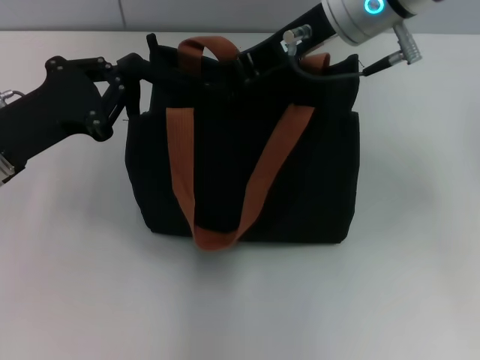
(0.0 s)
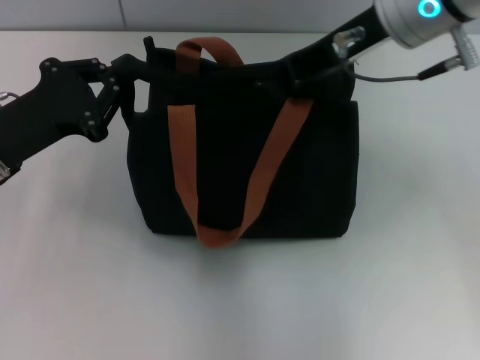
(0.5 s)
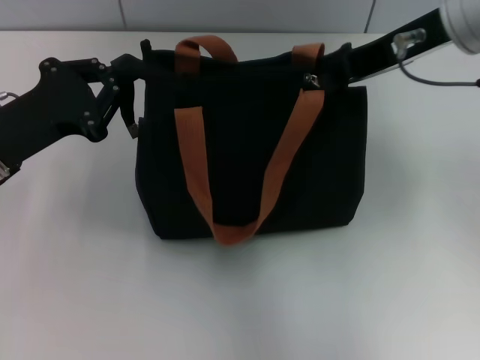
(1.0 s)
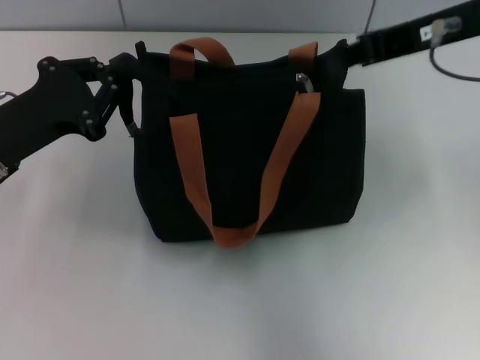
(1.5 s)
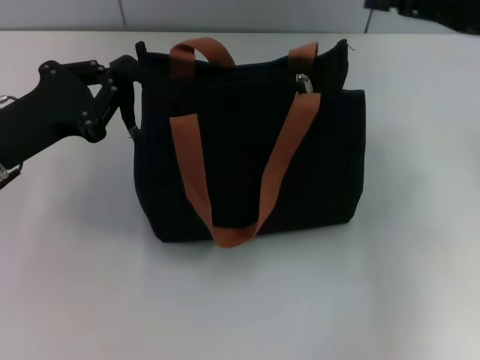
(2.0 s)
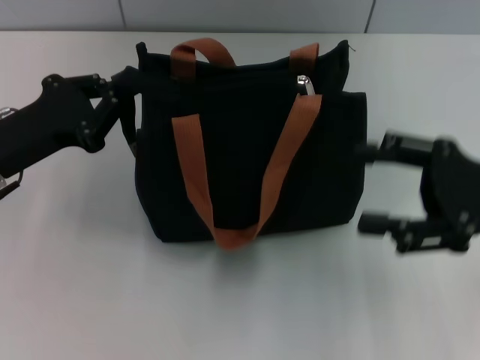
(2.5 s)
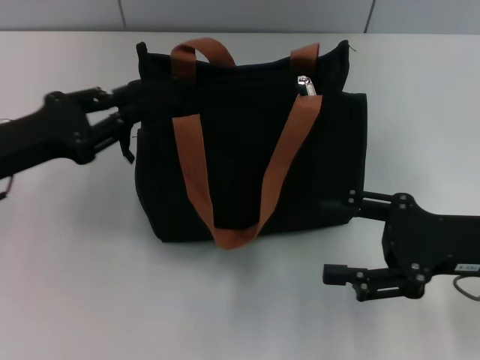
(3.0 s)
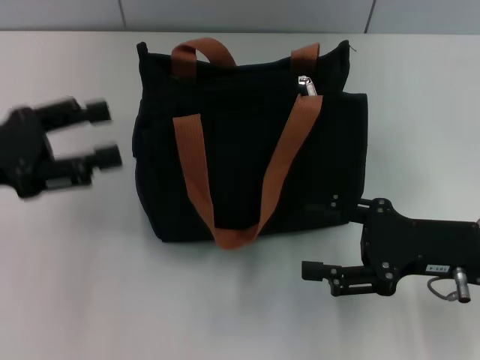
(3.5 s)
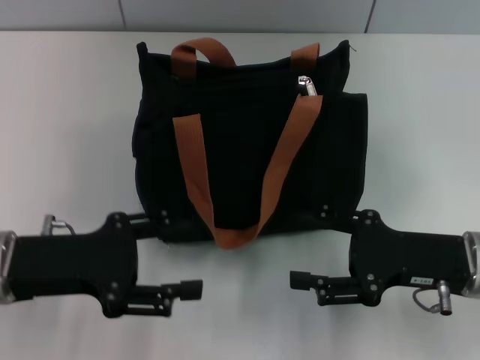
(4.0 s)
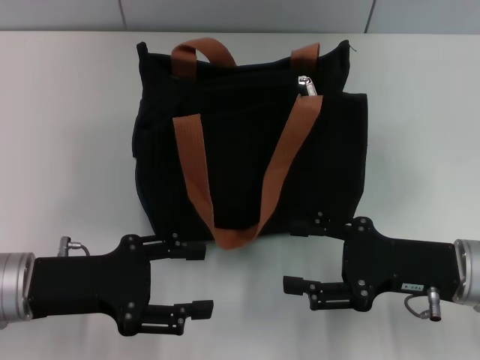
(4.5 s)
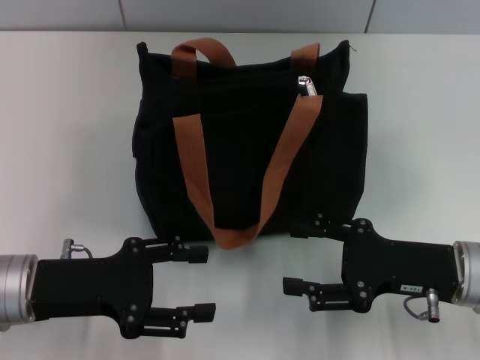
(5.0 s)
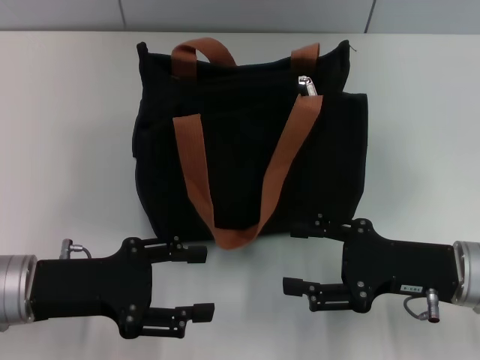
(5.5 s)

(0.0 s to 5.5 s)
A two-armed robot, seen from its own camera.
0.0 s - 2.0 s: The right gripper travels to the right by roughly 20 cm, and opens its fingers.
2.0 s - 3.5 s: The right gripper is displaced downward and backward by about 15 cm, and opens; the left gripper ends up roughly 5 cm from where it was, and opens.
3.5 s - 5.5 s: The left gripper is displaced downward and to the right by about 10 cm.

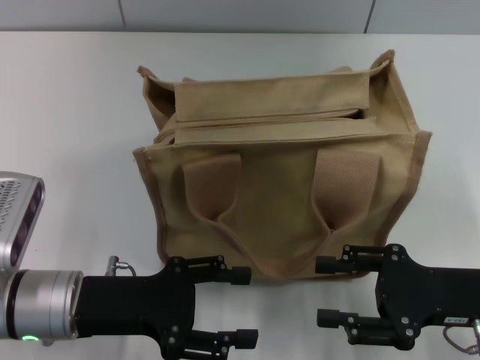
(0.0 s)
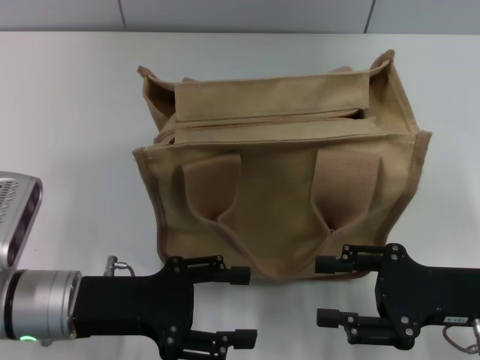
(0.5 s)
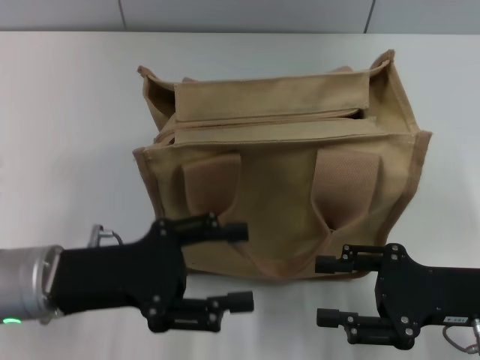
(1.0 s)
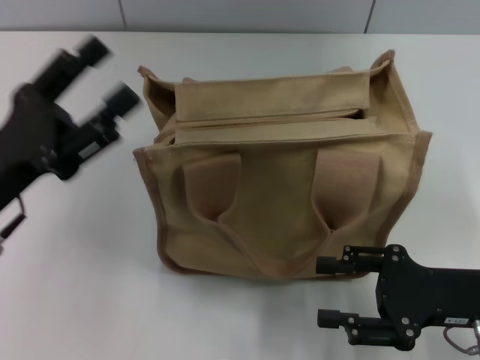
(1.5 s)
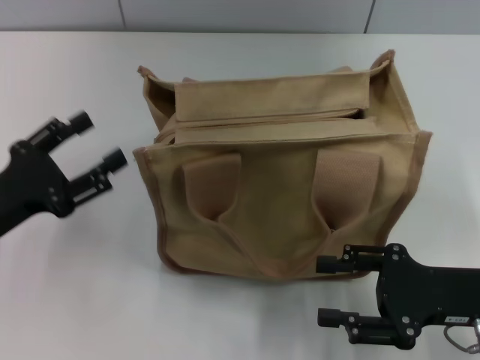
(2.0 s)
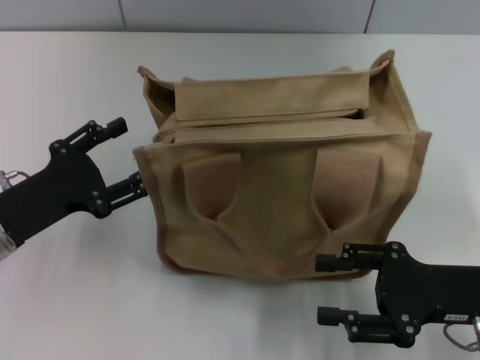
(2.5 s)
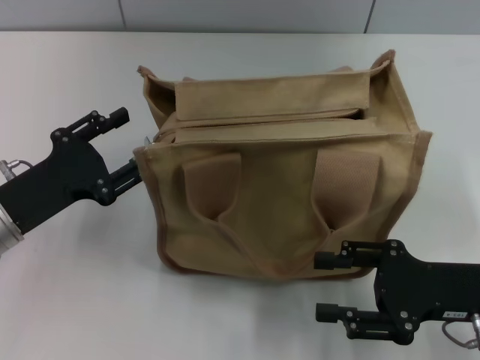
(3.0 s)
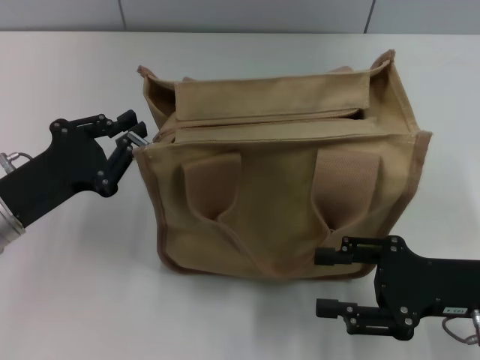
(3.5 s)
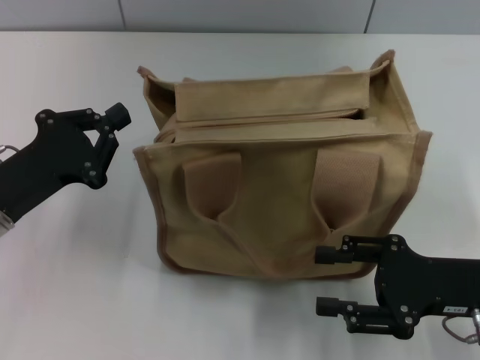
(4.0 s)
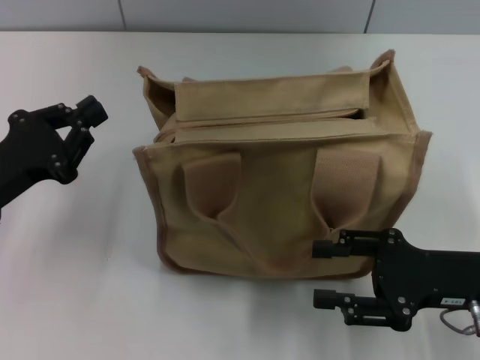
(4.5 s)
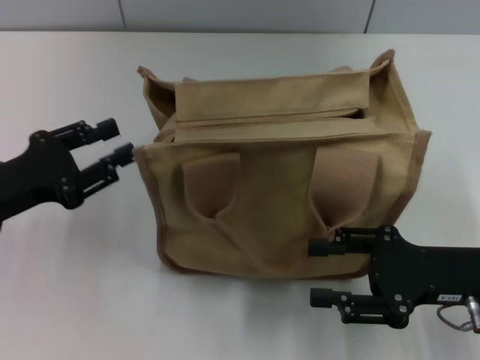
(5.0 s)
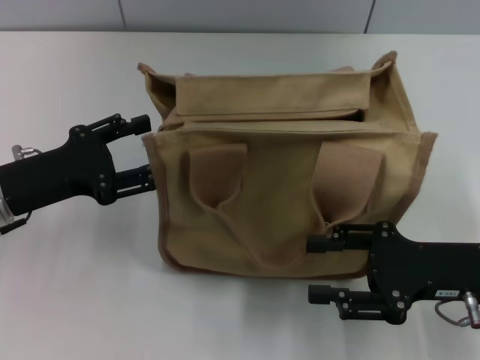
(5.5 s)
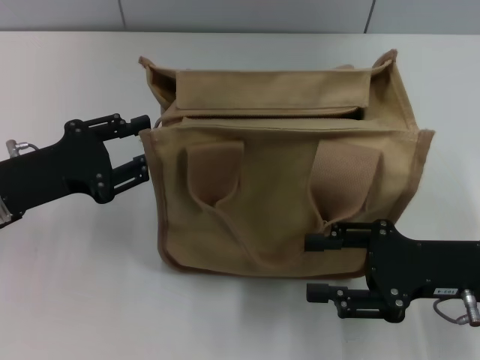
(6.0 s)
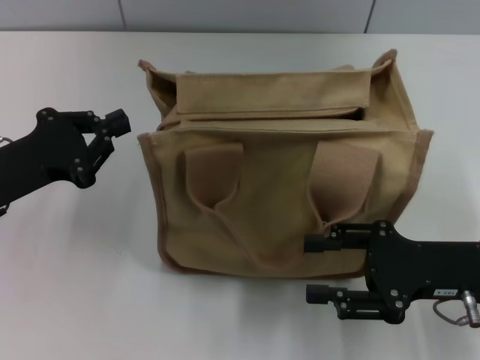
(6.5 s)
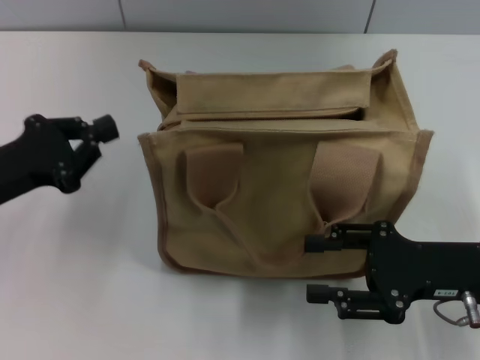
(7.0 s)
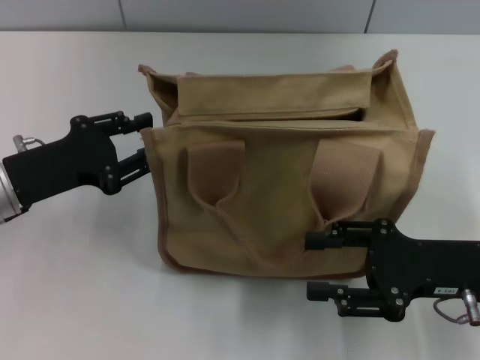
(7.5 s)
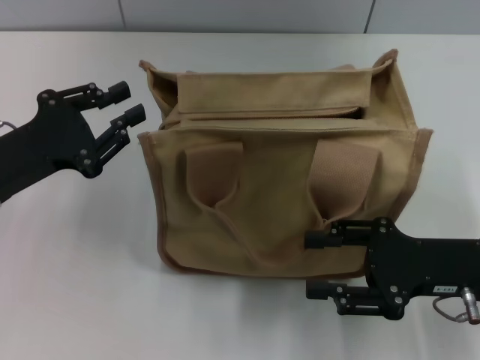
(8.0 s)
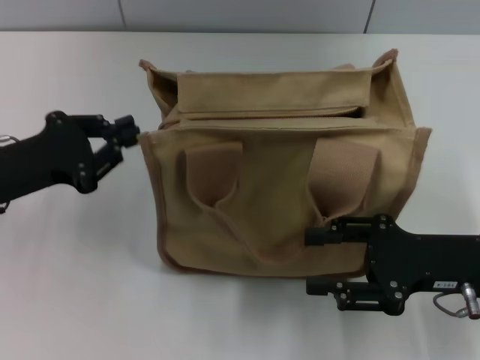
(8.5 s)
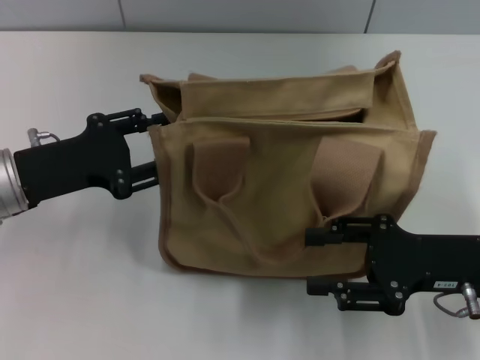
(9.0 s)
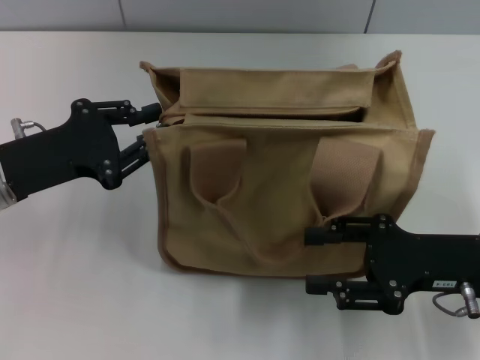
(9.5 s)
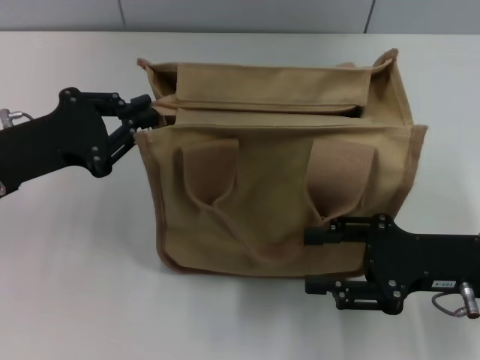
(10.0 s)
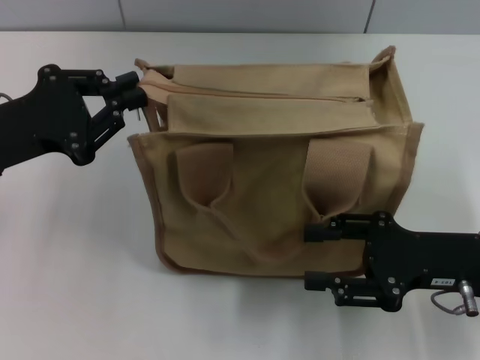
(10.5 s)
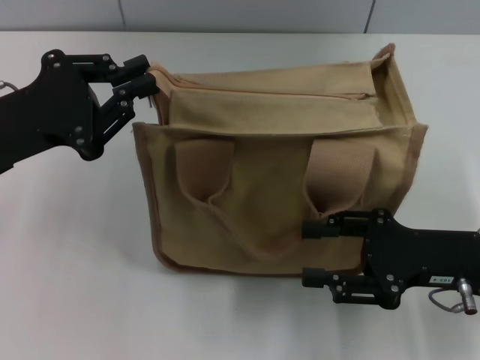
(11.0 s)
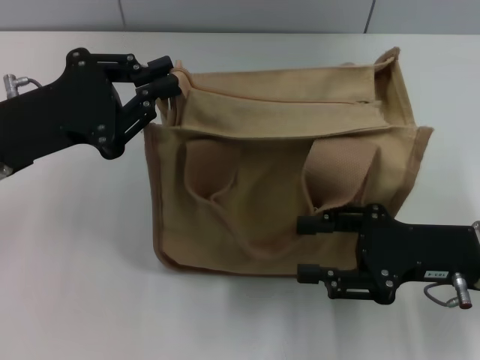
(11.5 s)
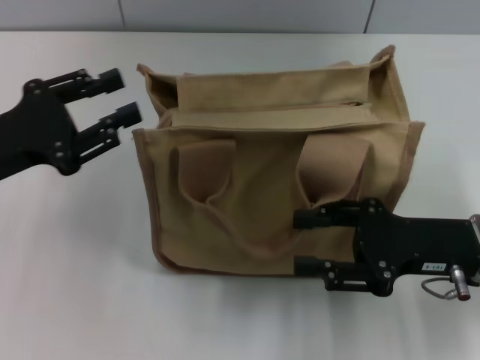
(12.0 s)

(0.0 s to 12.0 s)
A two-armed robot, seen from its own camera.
0.0 s - 2.0 s: The left gripper moves to the left, approximately 10 cm.
2.0 s - 4.0 s: The left gripper closes.
4.0 s - 6.0 s: The left gripper opens up.
6.0 s - 8.0 s: The left gripper closes, then reopens.
8.0 s - 10.0 s: The left gripper closes.
10.0 s - 12.0 s: The grippers stay close to where they were, moving slightly.

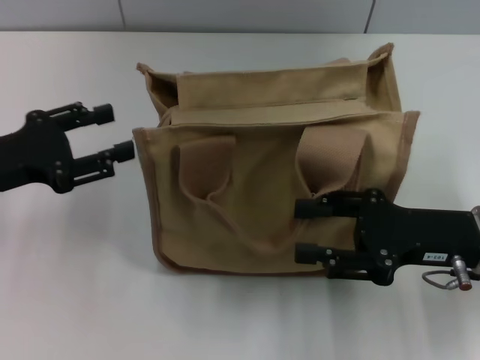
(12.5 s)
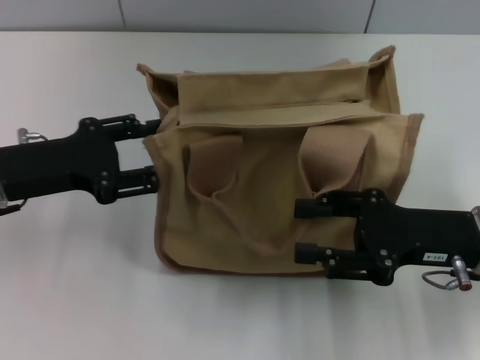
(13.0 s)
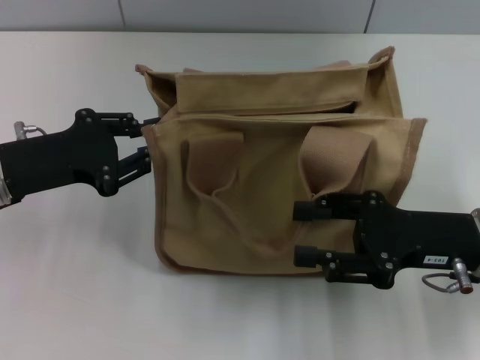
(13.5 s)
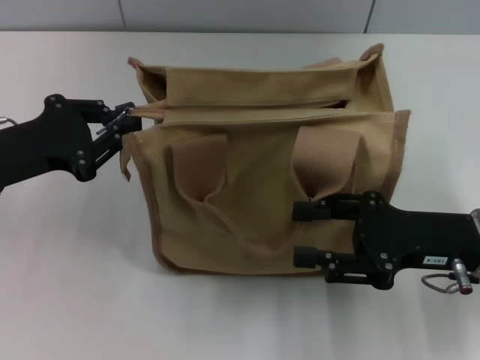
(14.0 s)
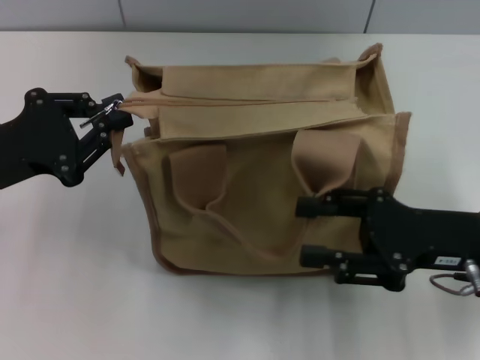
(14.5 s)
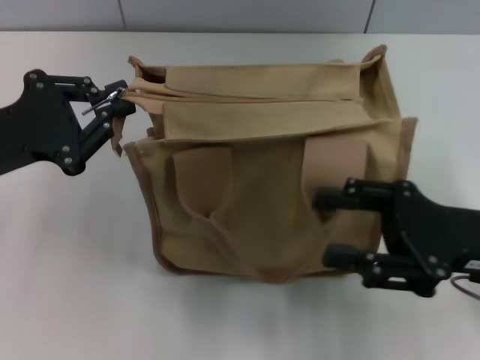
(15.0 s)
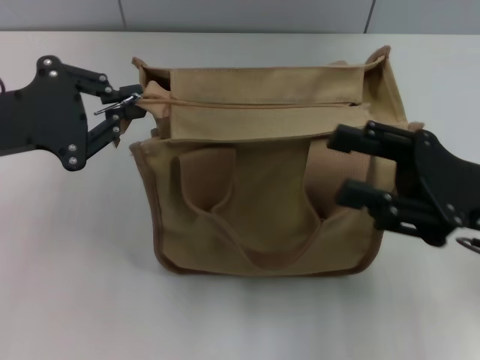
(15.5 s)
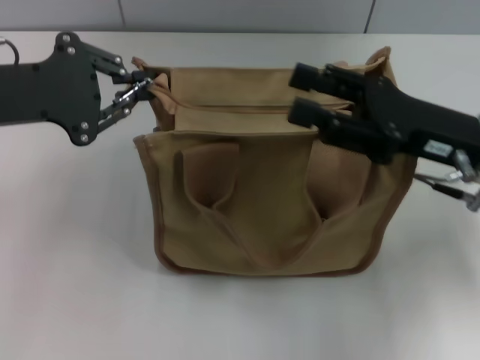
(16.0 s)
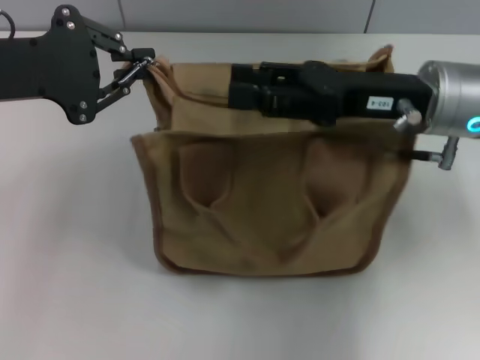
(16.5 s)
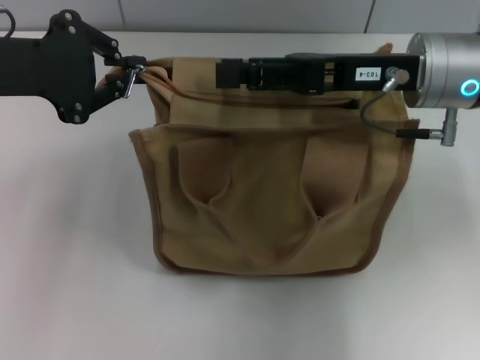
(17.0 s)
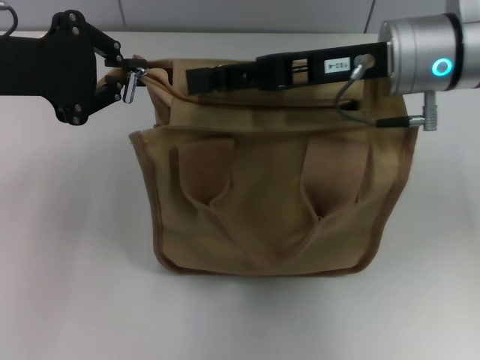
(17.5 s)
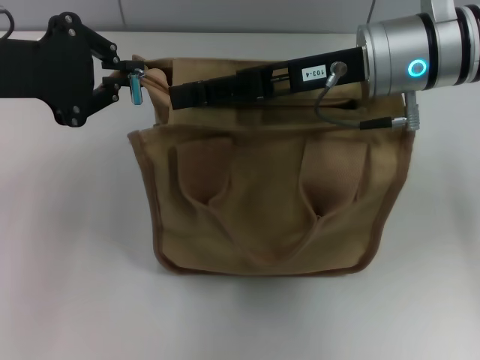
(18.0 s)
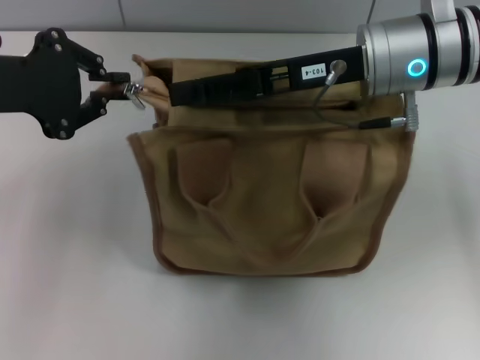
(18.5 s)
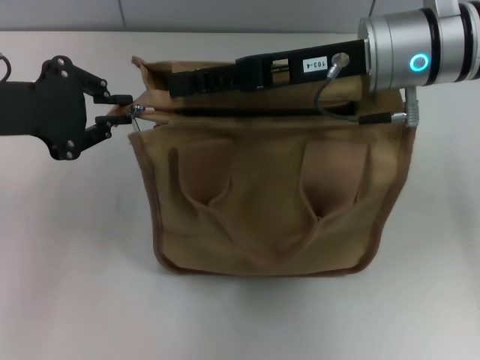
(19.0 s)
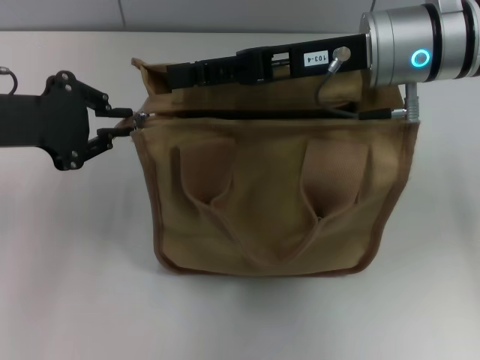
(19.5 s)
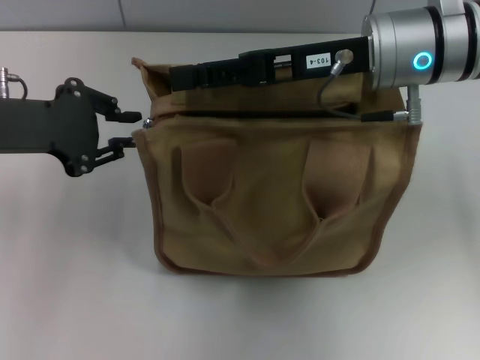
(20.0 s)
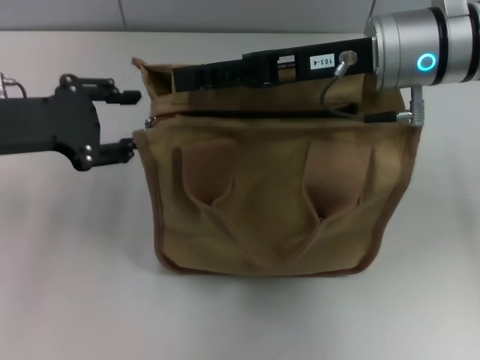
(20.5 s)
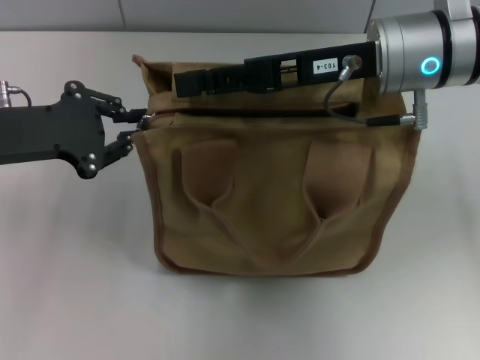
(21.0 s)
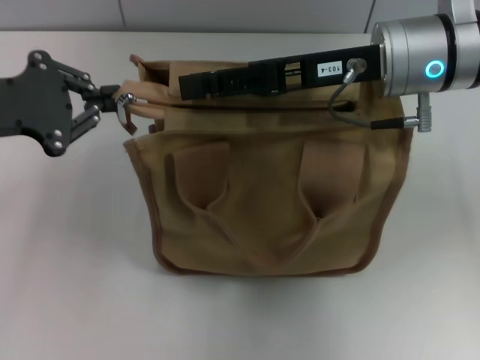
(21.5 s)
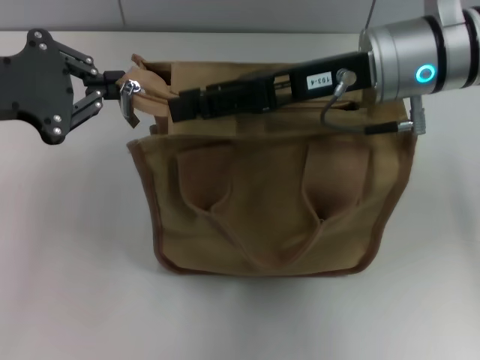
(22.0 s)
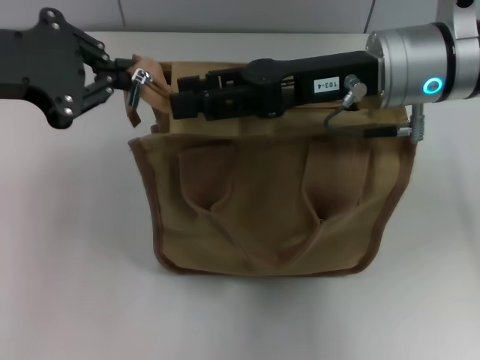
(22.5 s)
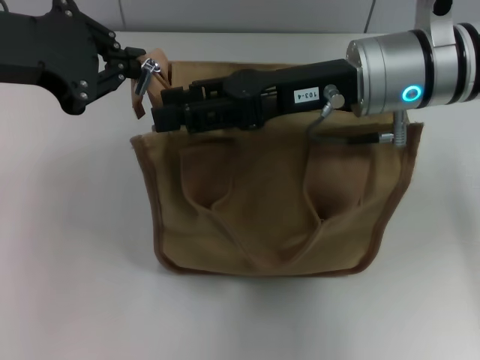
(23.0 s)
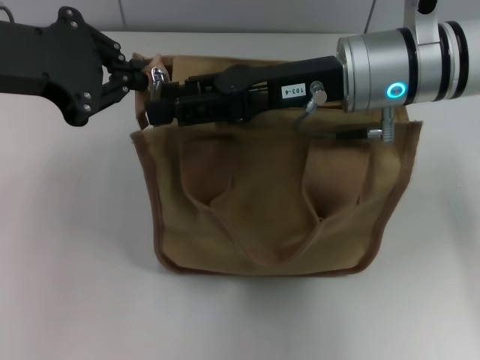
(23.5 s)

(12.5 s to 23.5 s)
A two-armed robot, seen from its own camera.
12.5 s - 14.5 s: The left gripper closes its fingers.
14.5 s - 16.0 s: The right gripper shifts roughly 5 cm forward. Meanwhile the left gripper goes about 5 cm upward.
16.0 s - 18.0 s: The right gripper shifts some 15 cm to the left, forward and upward.
18.0 s - 20.0 s: The left gripper moves downward, some 5 cm.
20.0 s - 21.5 s: The grippers stay close to where they were, moving slightly.
21.5 s - 23.5 s: The left gripper heads upward and to the right, covering some 10 cm.
